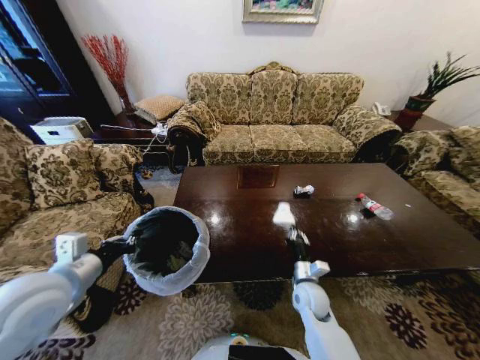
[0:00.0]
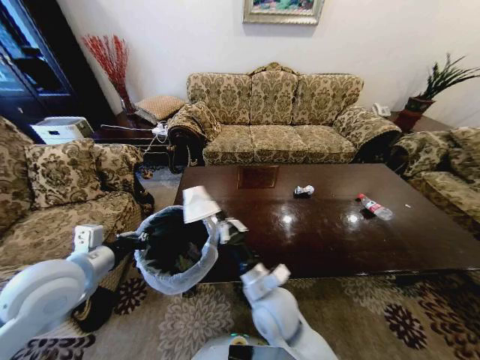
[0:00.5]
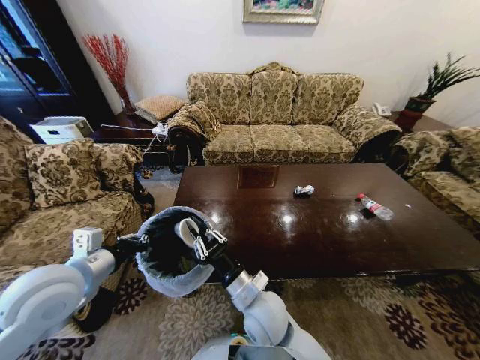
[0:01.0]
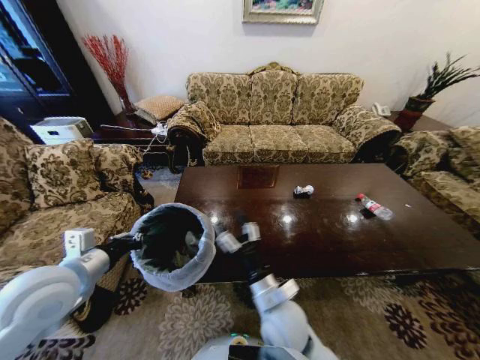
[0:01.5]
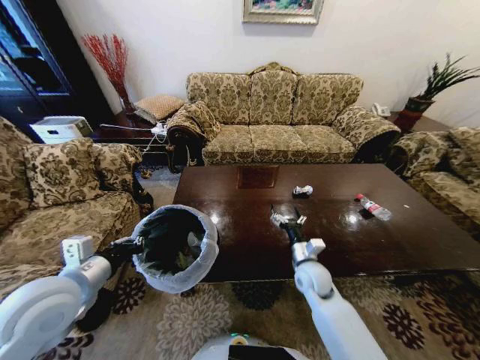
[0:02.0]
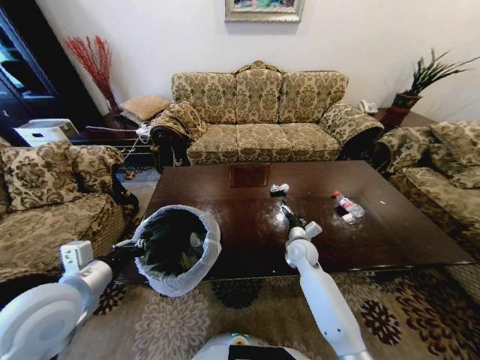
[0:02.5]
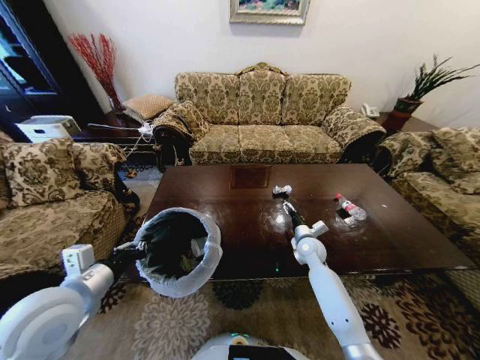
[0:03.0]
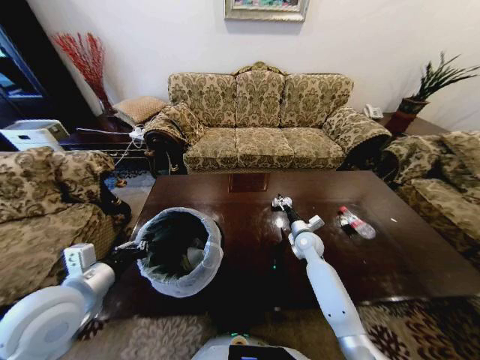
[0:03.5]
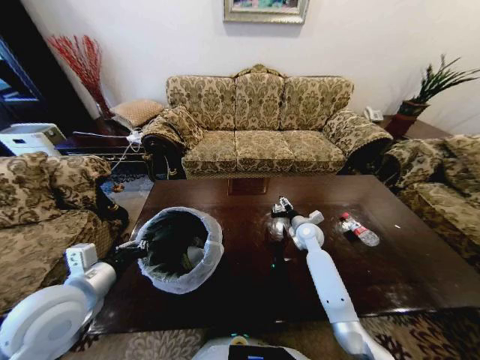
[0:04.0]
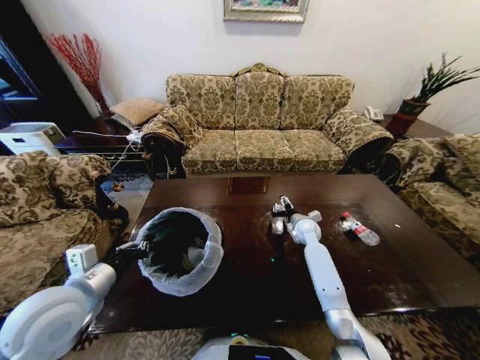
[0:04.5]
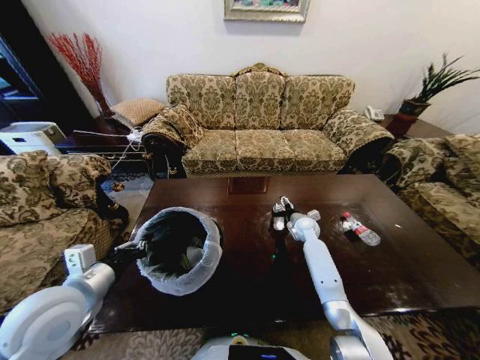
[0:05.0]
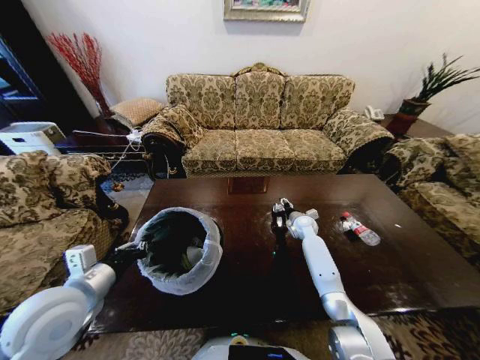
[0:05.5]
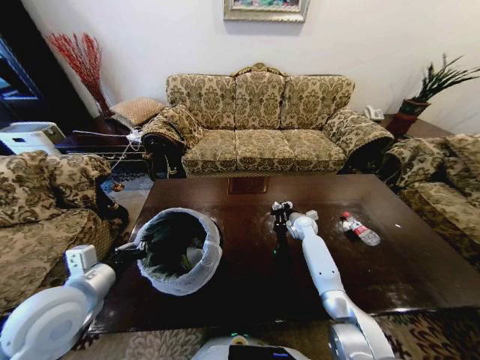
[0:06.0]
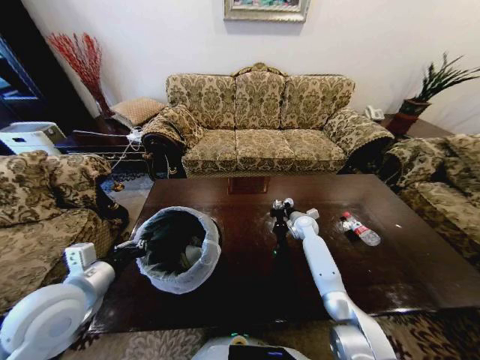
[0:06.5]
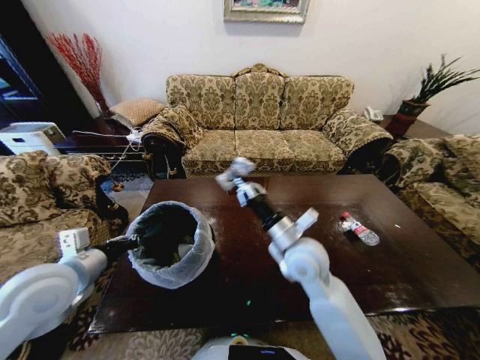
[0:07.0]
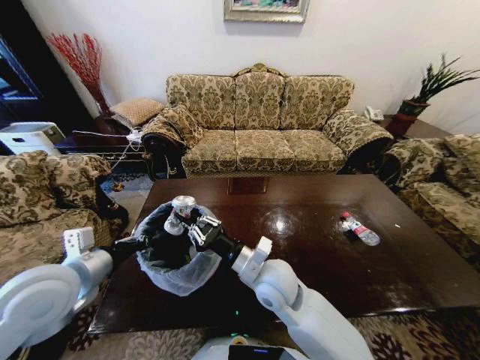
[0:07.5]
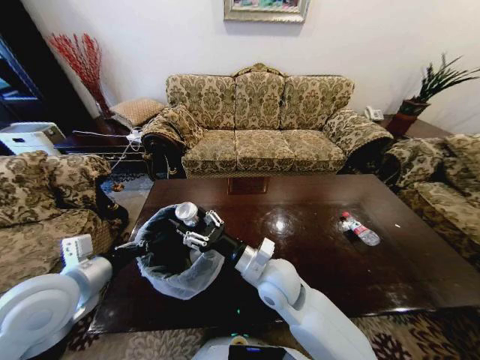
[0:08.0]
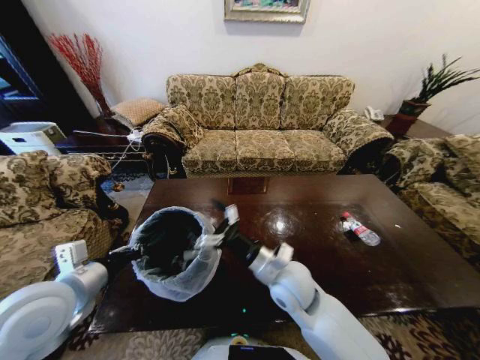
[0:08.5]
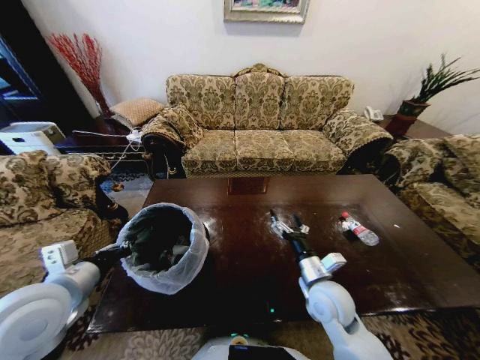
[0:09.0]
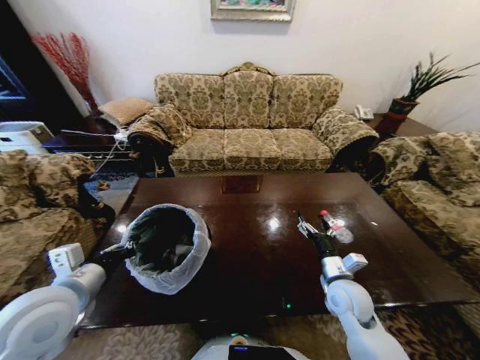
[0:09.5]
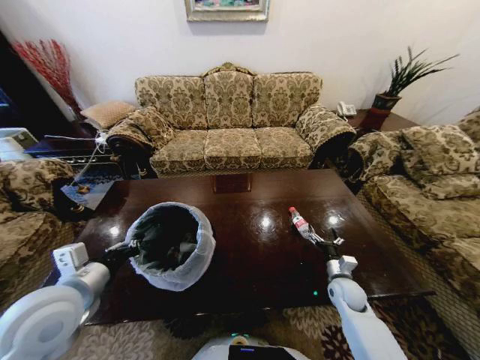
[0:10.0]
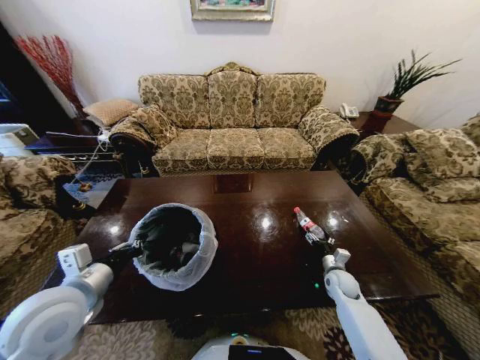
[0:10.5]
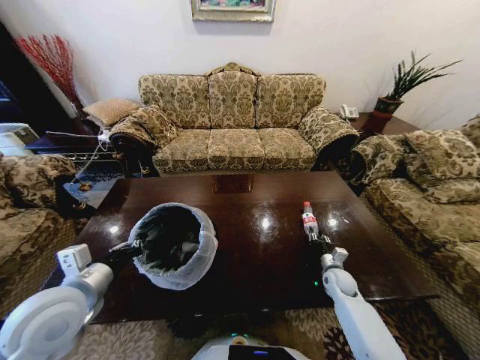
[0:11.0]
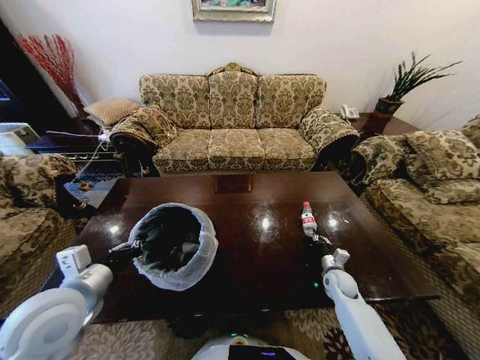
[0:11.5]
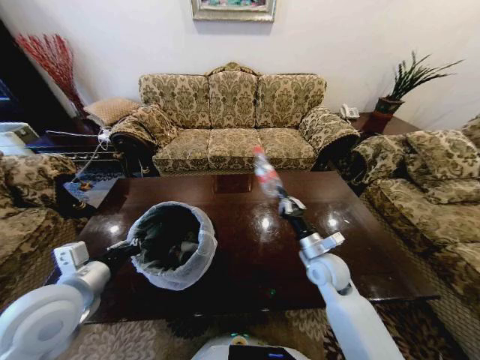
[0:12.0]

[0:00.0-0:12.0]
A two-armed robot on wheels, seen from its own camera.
Task of the whole recording: Move to the front of the table and place the trash on the table into the trash bin.
0:00.0 to 0:02.0: The right gripper reaches roughly 15 cm to the left, then returns, and opens its fingers.
0:02.0 to 0:04.0: The right gripper shifts roughly 15 cm forward.
0:04.0 to 0:06.0: The right gripper shifts approximately 5 cm forward, and closes.
0:06.0 to 0:08.0: The right gripper is displaced backward, to the left and upward by approximately 35 cm.
0:08.0 to 0:10.0: The right gripper moves to the right and downward, approximately 35 cm, and opens up.
0:10.0 to 0:12.0: The right gripper moves upward and to the left, roughly 15 cm, and closes up.

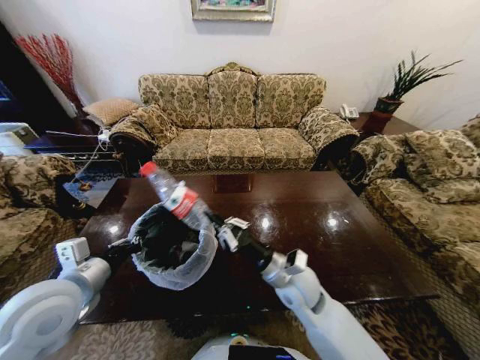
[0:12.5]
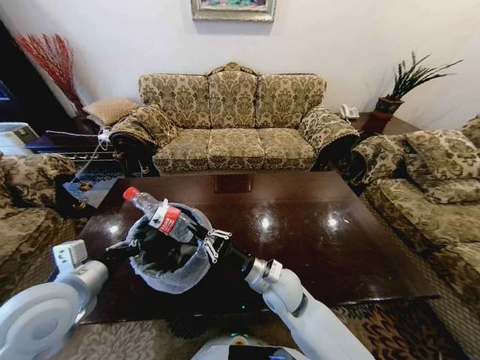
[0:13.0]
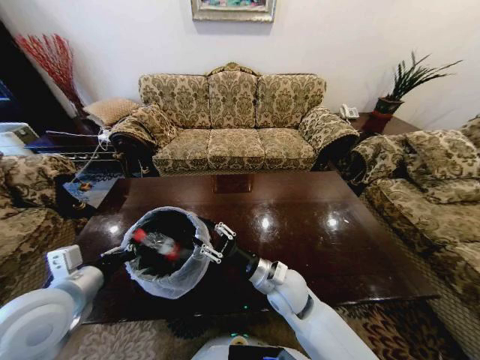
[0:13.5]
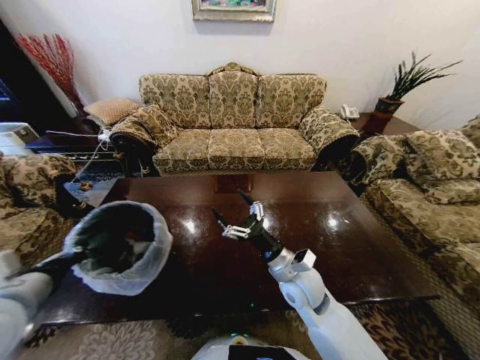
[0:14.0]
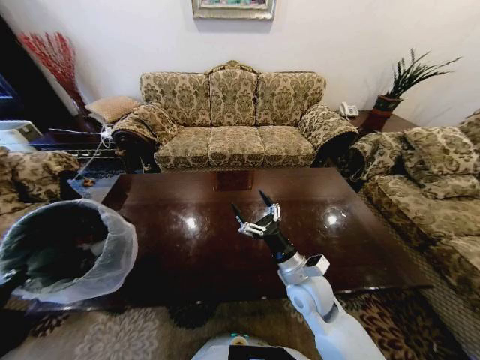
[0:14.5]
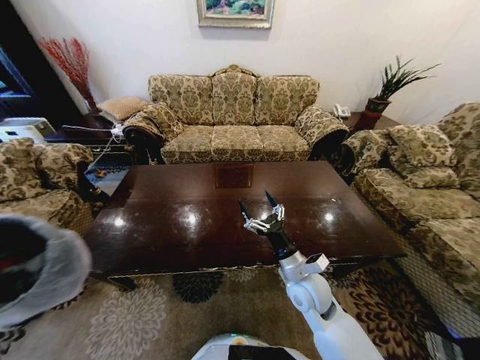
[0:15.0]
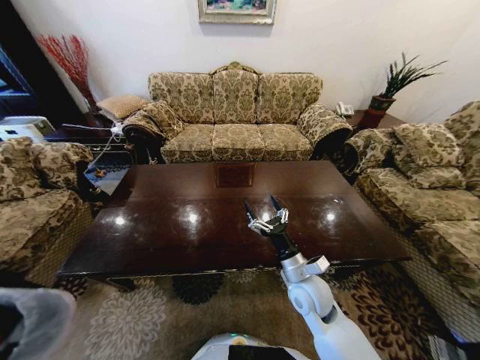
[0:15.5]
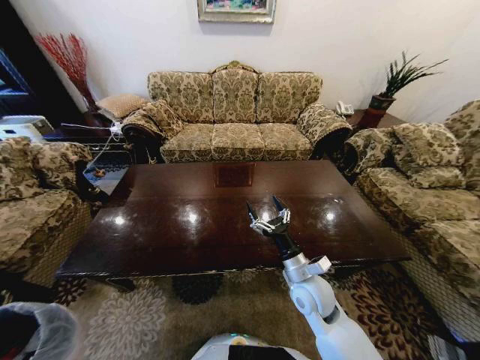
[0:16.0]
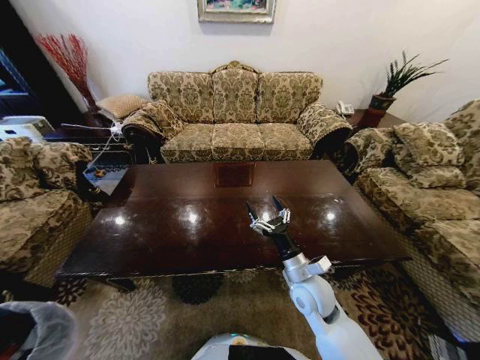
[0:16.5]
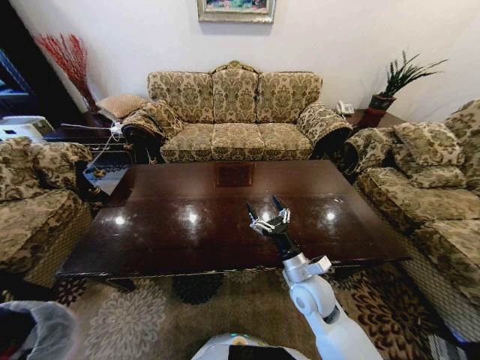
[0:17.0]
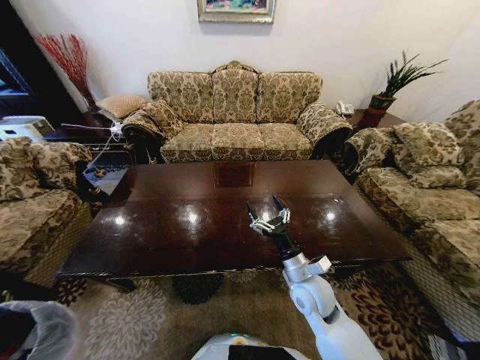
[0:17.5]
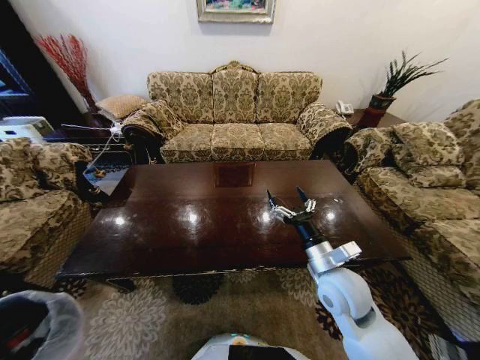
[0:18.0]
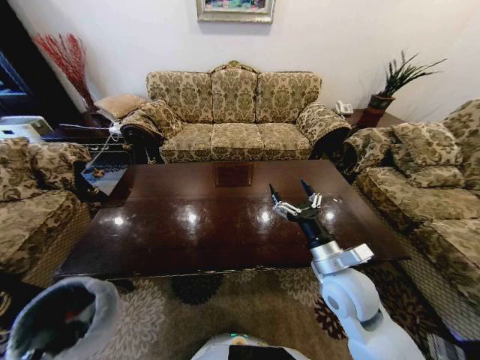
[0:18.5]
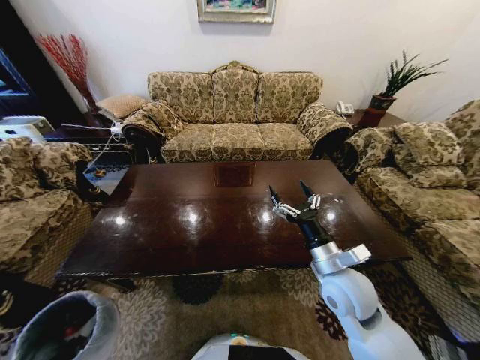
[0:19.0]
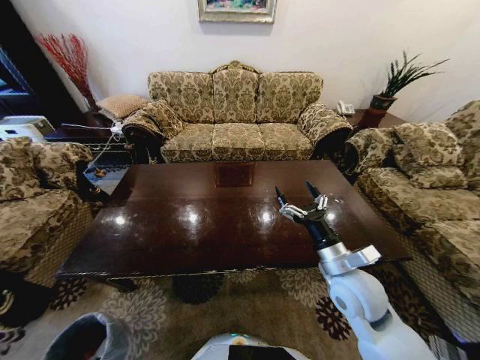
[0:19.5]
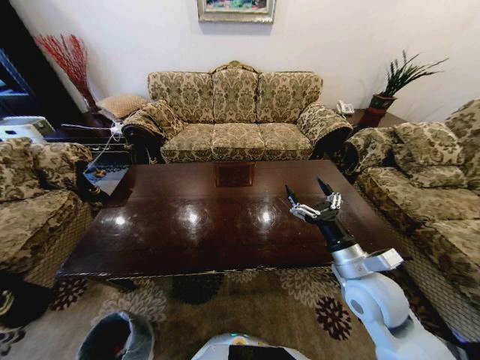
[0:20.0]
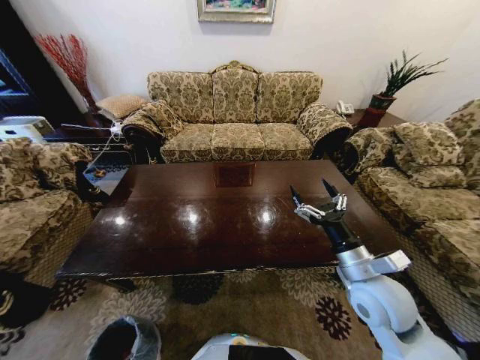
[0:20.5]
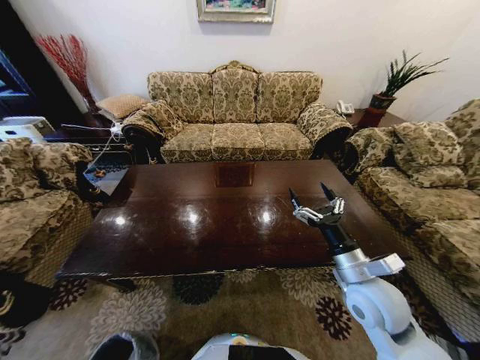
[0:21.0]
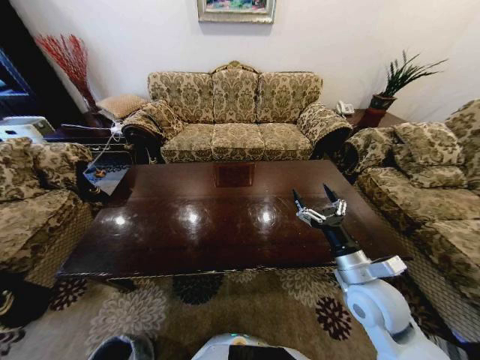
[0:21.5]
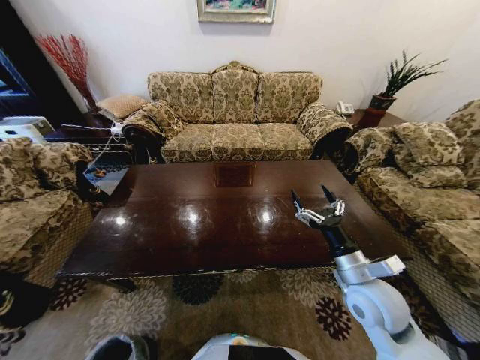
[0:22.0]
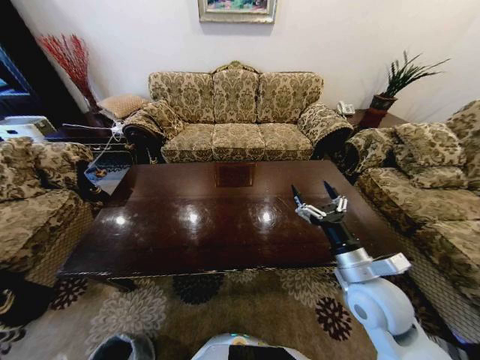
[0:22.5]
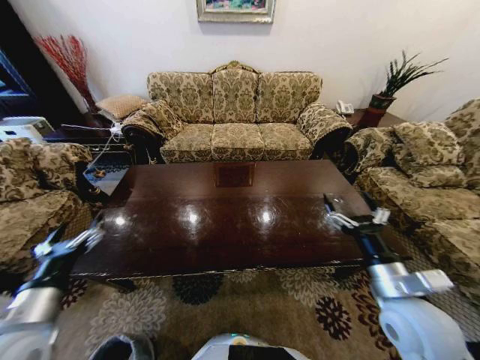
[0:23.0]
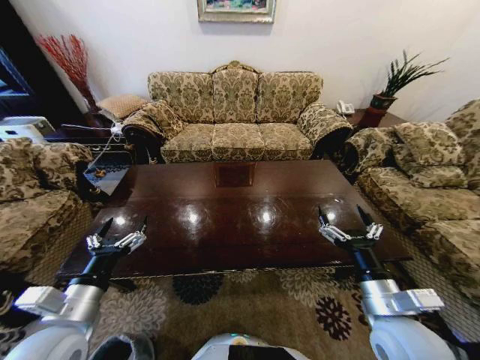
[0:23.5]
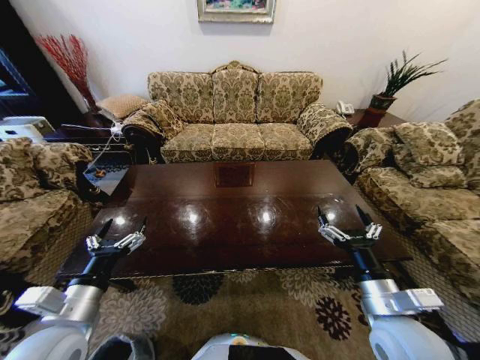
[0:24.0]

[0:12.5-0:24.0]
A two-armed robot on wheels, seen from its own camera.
Task of the whole recording: Move to the front of the table and place the trash on the table into the trash bin.
0:12.5 to 0:14.5: The left gripper goes roughly 10 cm backward and to the left. Meanwhile the right gripper opens its fingers.
0:14.5 to 0:16.5: The left gripper heads downward and to the left, covering approximately 25 cm.
0:16.5 to 0:18.5: The right gripper is displaced upward by roughly 10 cm; the left gripper shifts about 5 cm downward.
0:18.5 to 0:20.0: The left gripper travels downward by some 20 cm.
0:20.0 to 0:22.0: The left gripper moves backward, about 5 cm, and opens.
0:22.0 to 0:24.0: The left gripper heads upward and forward, covering about 35 cm, while the right gripper heads backward, covering roughly 5 cm.

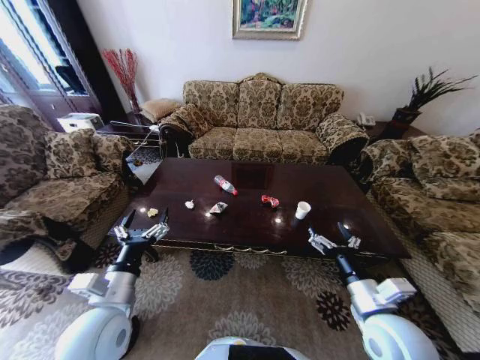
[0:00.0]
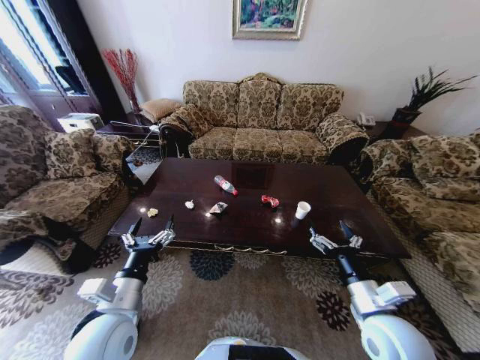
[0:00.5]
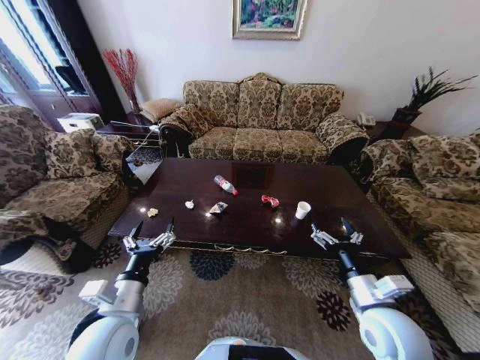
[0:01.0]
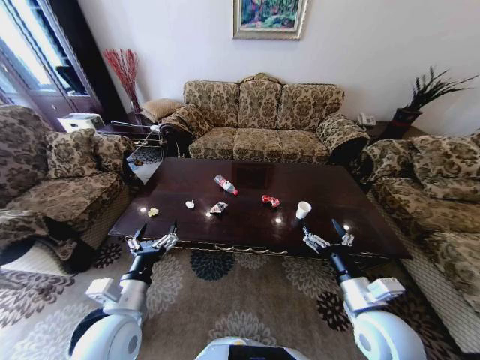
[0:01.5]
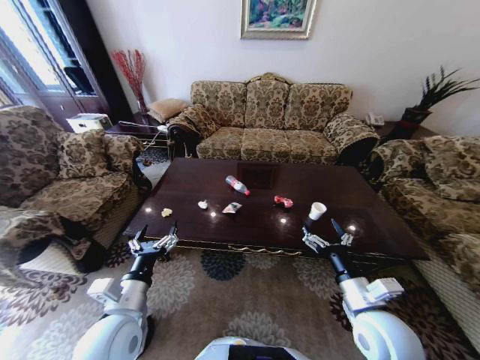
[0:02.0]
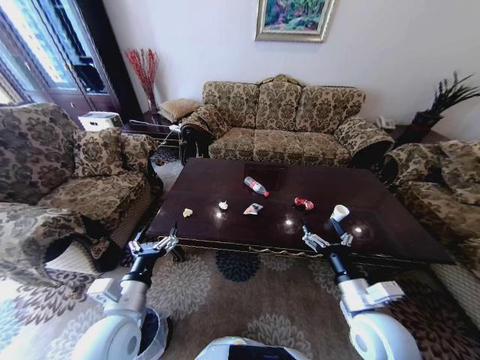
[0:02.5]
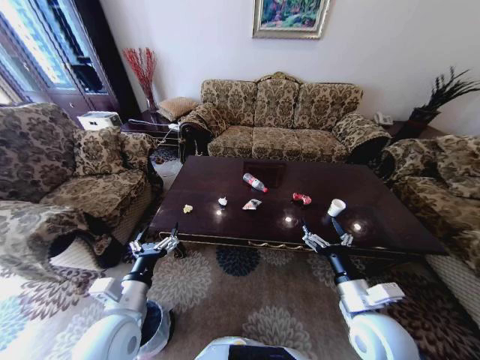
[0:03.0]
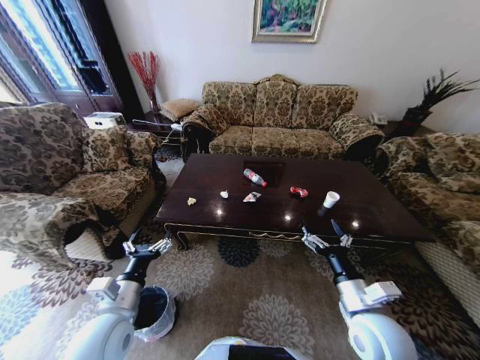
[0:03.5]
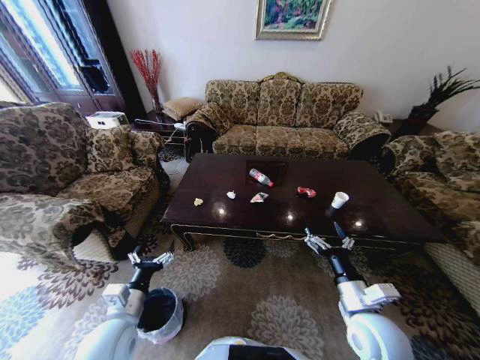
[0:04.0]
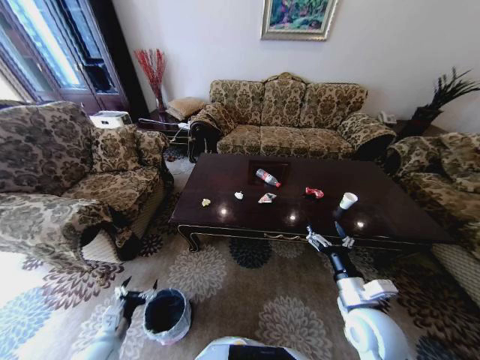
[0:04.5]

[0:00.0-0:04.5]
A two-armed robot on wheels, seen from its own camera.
Task of the whole recording: Move to the front of the table and place the trash on the table into the trash bin.
0:02.0 to 0:04.5: The left gripper is displaced downward and to the left by some 20 cm.
